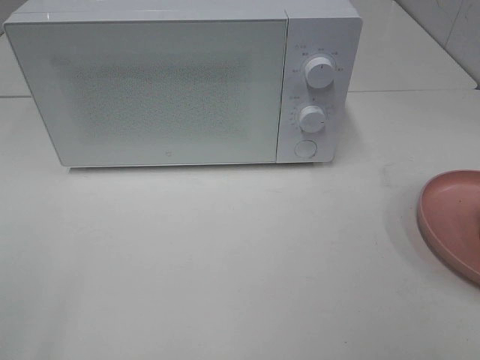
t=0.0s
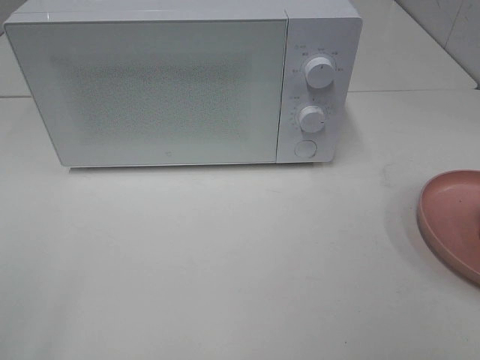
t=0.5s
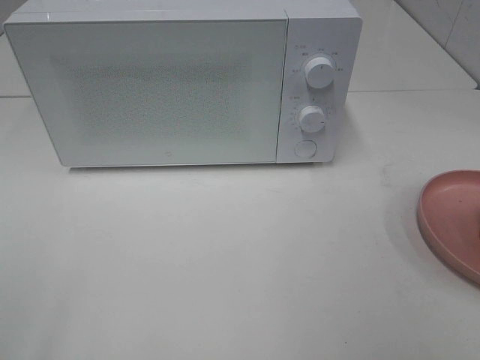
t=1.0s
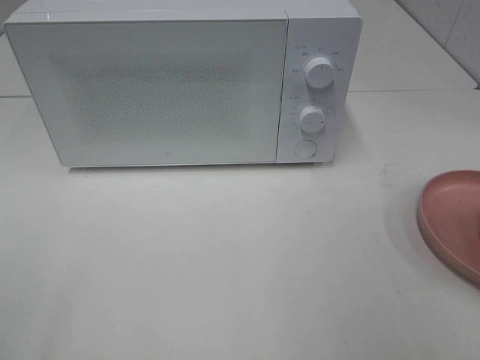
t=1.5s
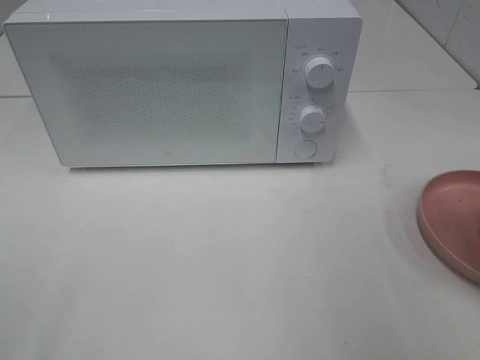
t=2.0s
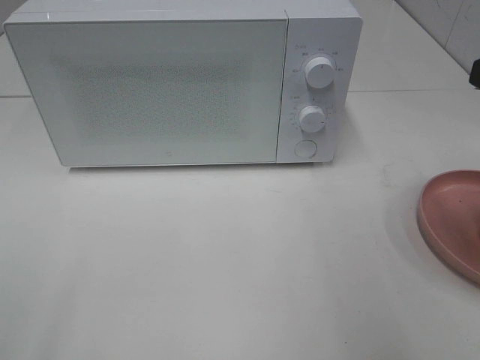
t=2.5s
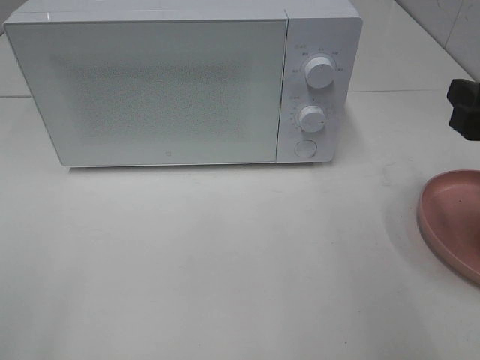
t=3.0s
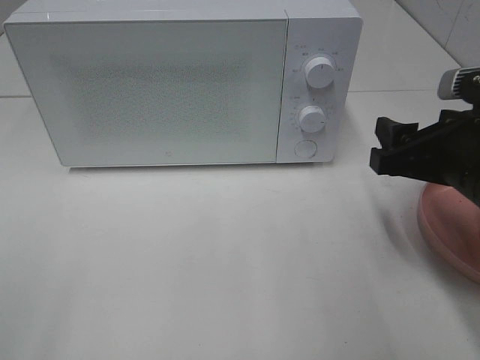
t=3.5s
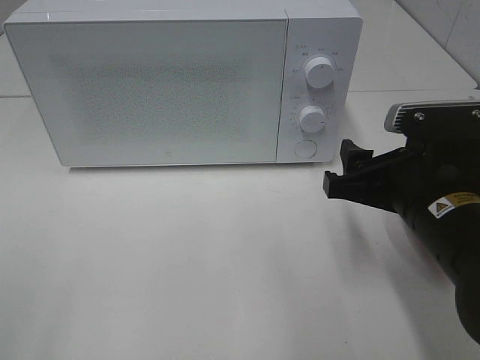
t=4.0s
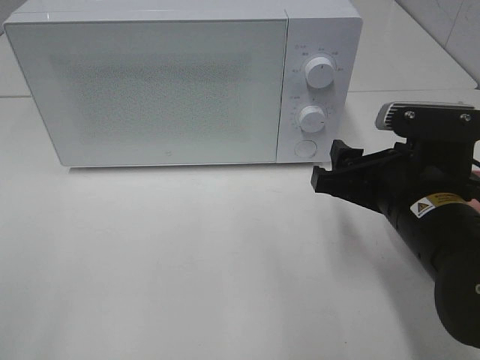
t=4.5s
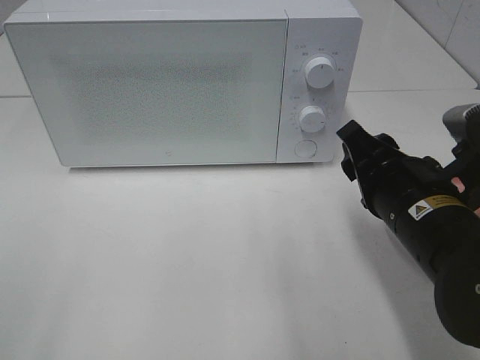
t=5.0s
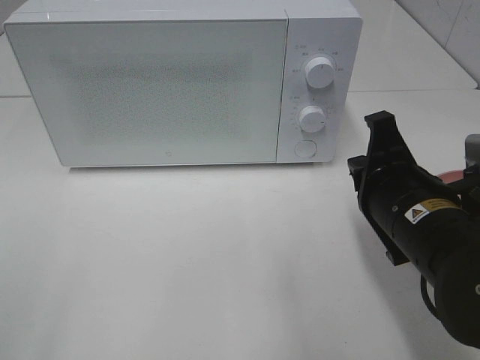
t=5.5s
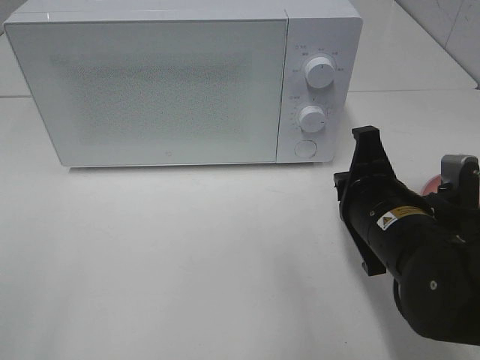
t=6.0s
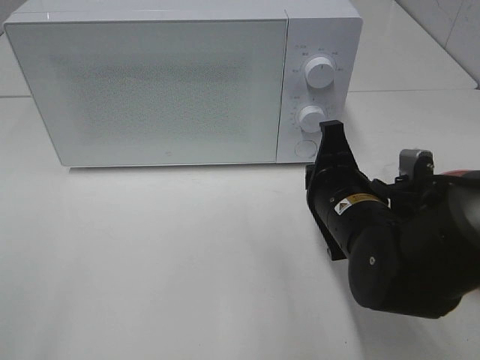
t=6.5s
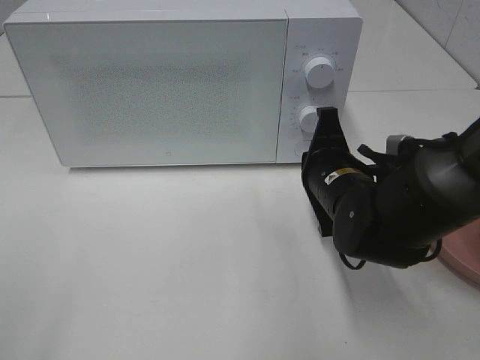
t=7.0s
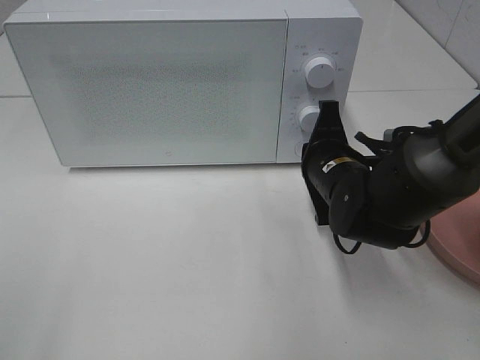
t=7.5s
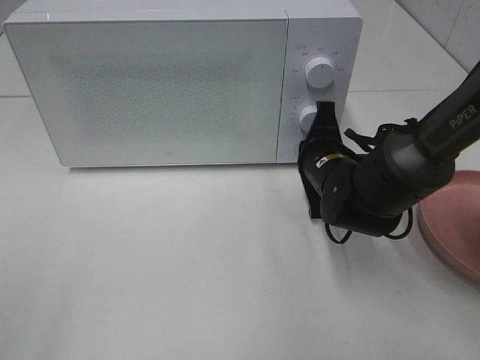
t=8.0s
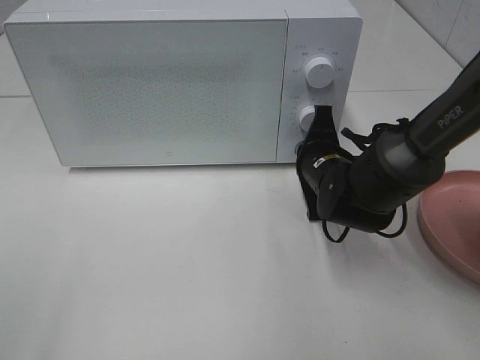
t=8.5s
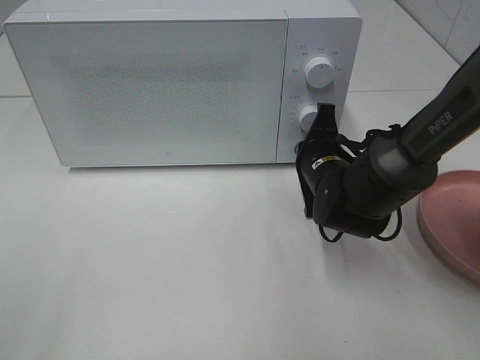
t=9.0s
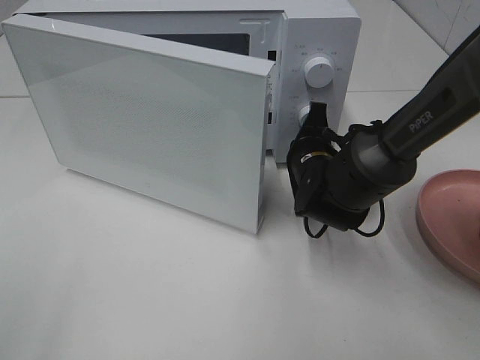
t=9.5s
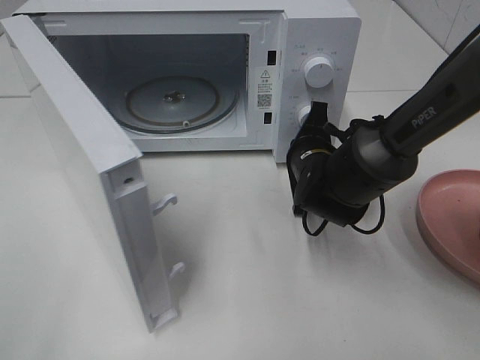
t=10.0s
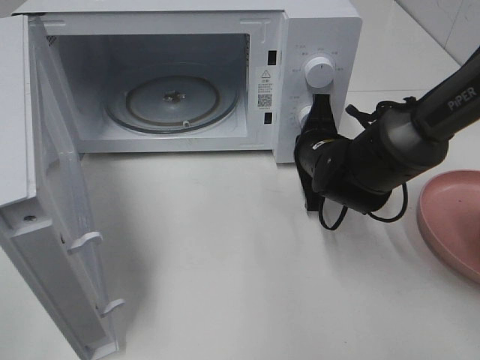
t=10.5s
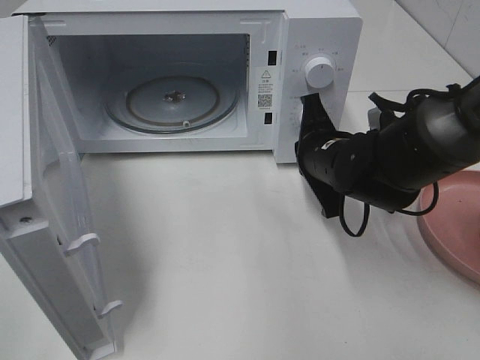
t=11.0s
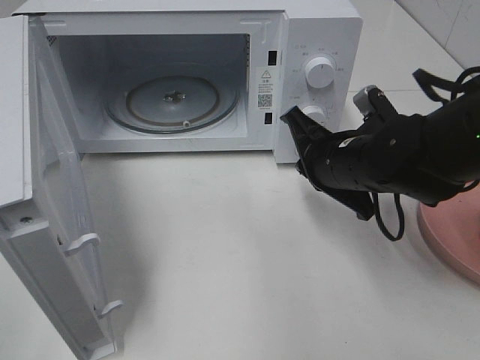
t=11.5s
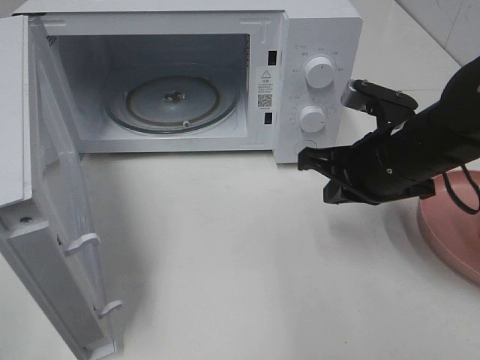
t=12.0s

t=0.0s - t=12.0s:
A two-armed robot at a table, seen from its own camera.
Task of the whole recording: Heat the burger.
Step, t=0.0s - t=10.5s: Right hand: press the switch.
t=2.0s - t=4.0s: The right gripper moves downward, to the left and forward, some 20 cm.
t=4.0s - t=6.0s: The right gripper closes.
t=6.0s - t=8.0s: The right gripper travels forward by approximately 10 cm.
t=10.0s - t=12.0s: The right gripper heads upward, backward and to the right, covering some 15 cm.

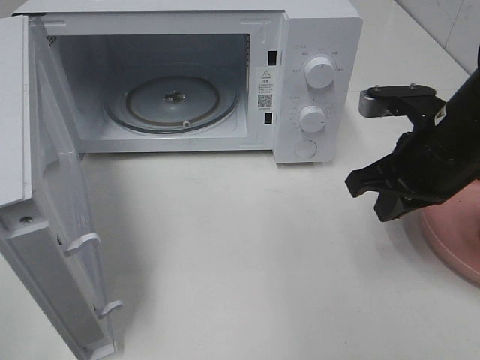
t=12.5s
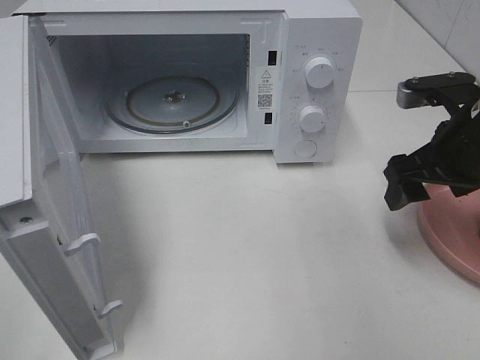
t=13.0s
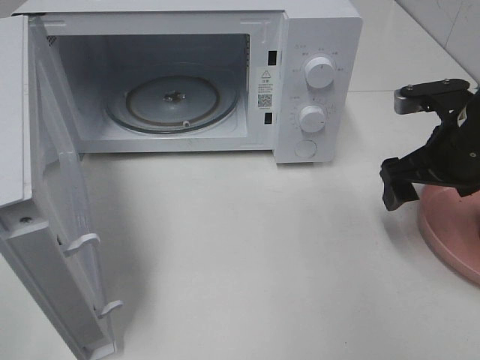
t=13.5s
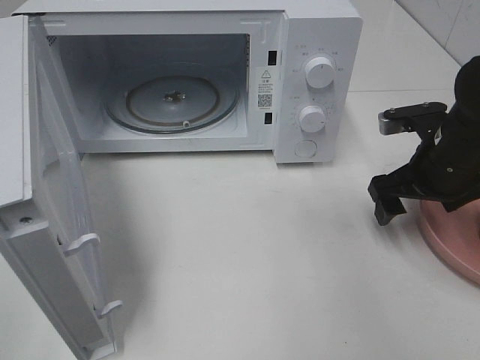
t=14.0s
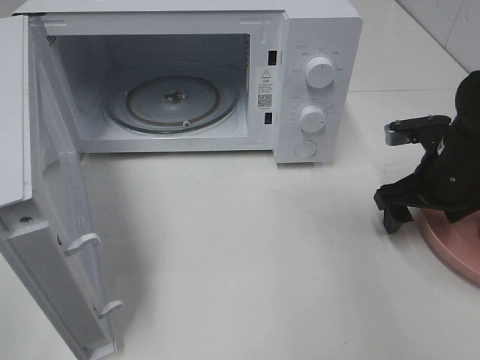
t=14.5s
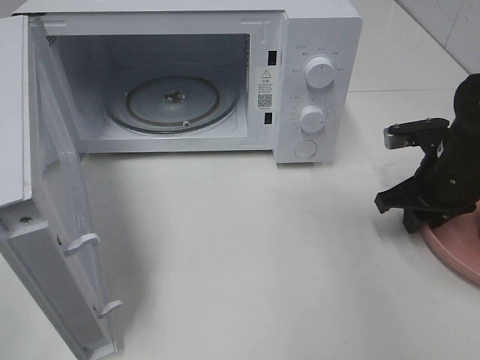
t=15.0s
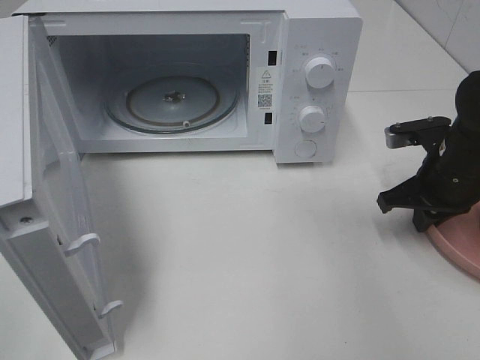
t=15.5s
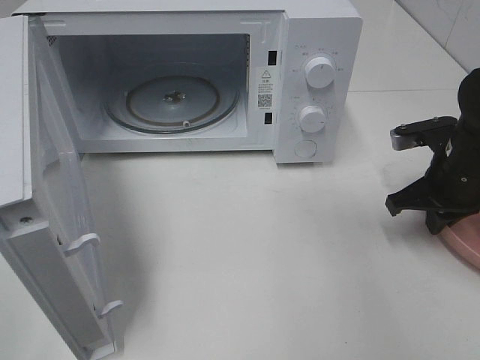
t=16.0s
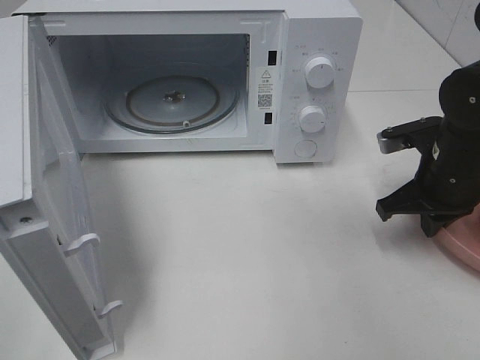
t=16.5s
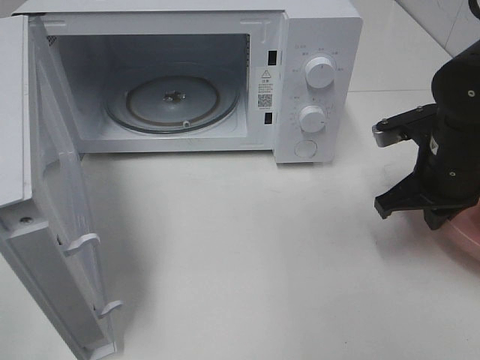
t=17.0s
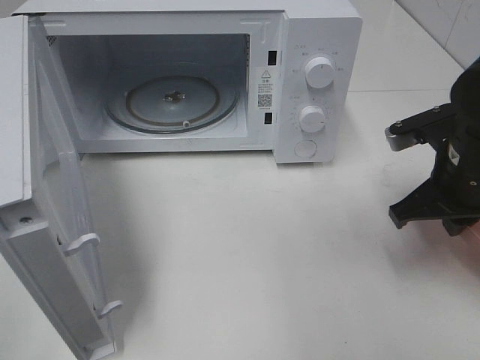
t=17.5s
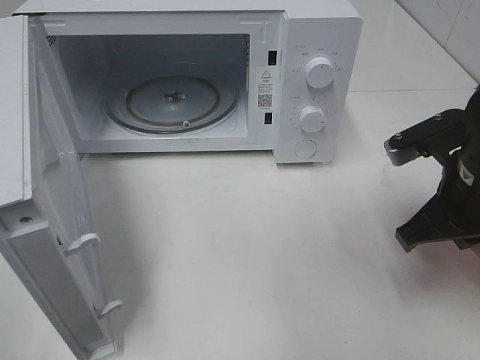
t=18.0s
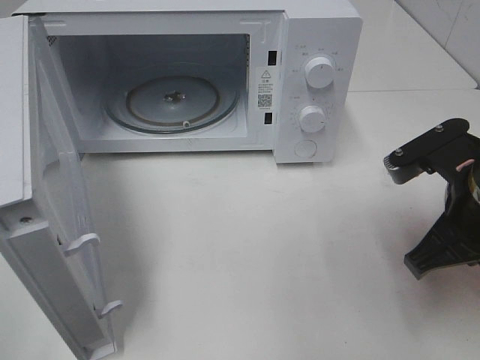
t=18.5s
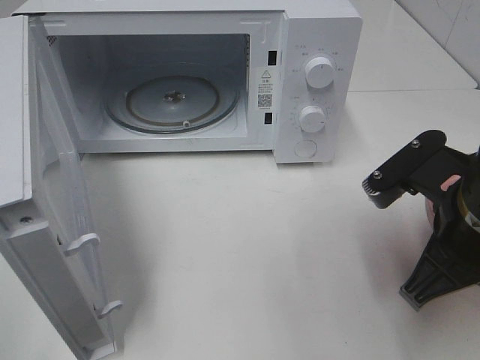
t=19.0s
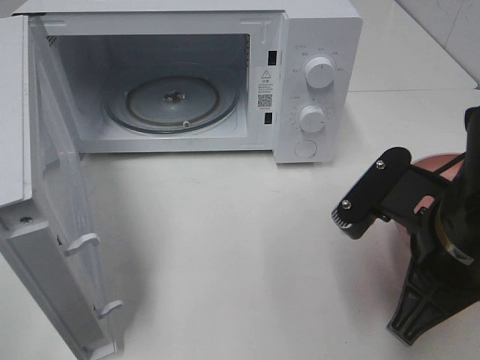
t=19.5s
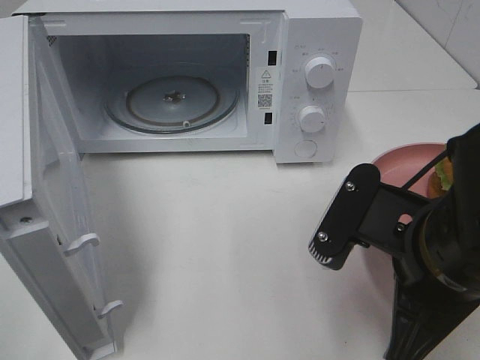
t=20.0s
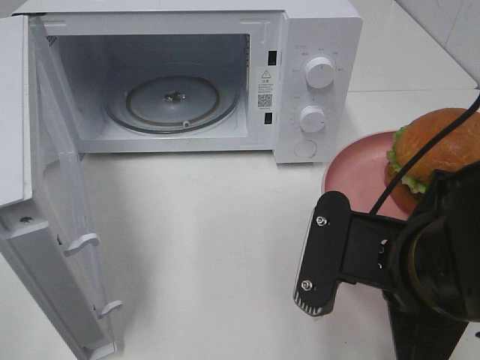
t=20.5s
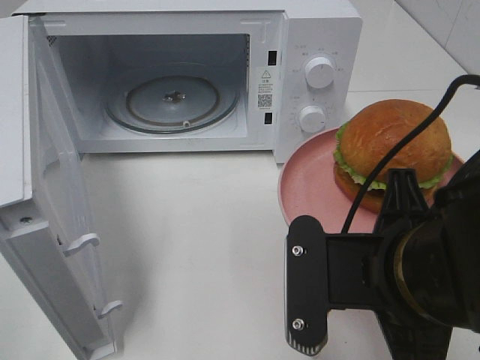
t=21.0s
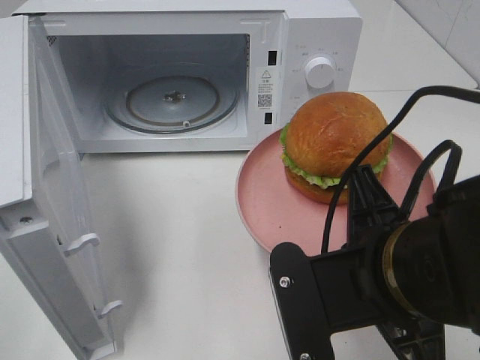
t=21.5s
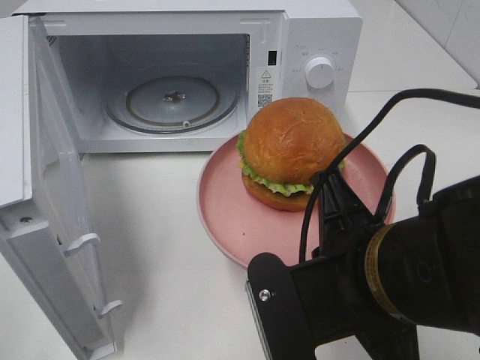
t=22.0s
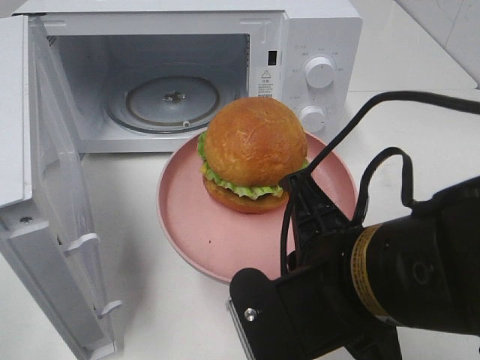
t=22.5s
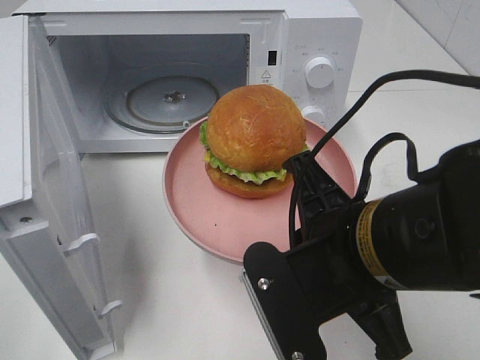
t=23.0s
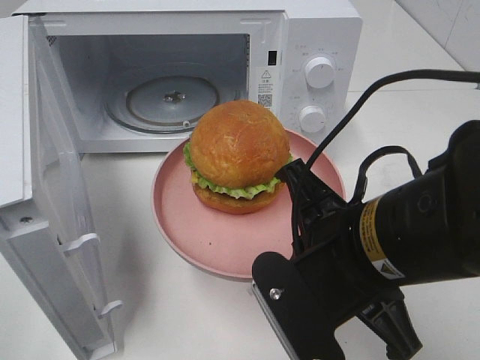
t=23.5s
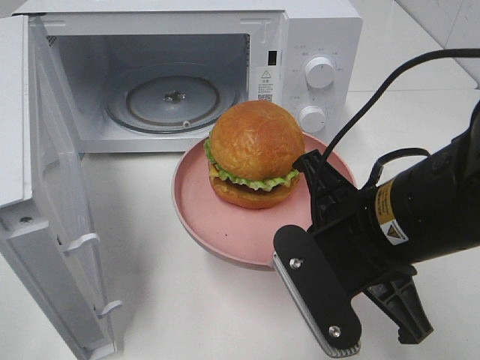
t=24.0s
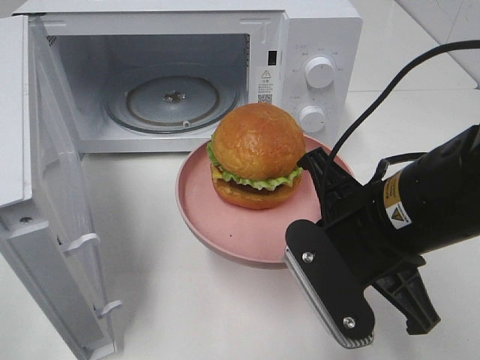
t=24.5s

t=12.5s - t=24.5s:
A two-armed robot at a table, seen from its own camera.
Task of the whole recording: Heat the burger.
Step, t=12.5s - t=15.5s: Right hand: grab the plate with the hamburger.
t=12.5s - t=14.5s: The right gripper travels downward and to the right by roughly 10 cm, and opens.
t=14.5s - t=16.5s: The right gripper closes its fingers.
t=16.5s - t=18.5s: The right gripper travels backward and upward by about 10 cm.
t=18.5s - t=20.5s: The right gripper heads to the left and backward, covering approximately 10 cm.
t=22.5s - t=24.5s: The right gripper heads forward, covering roughly 5 cm.

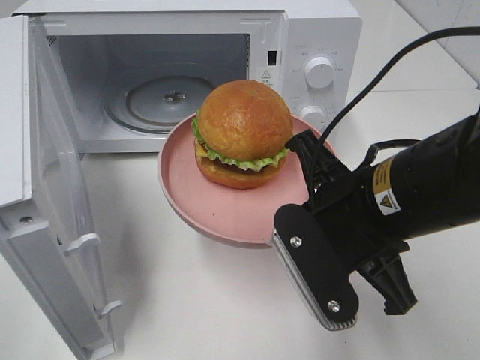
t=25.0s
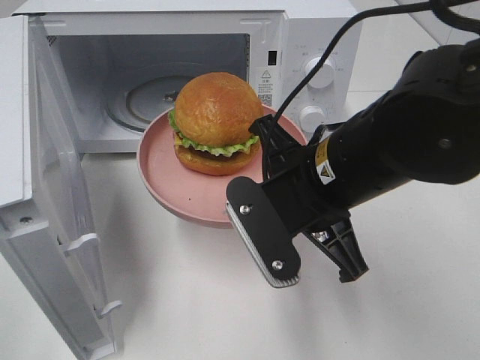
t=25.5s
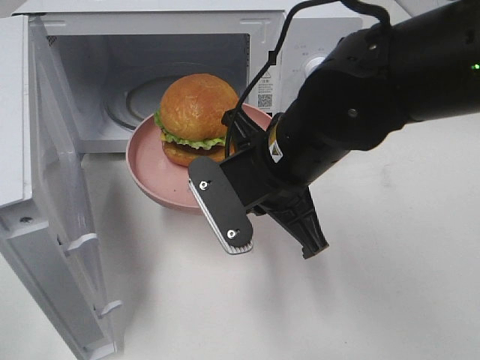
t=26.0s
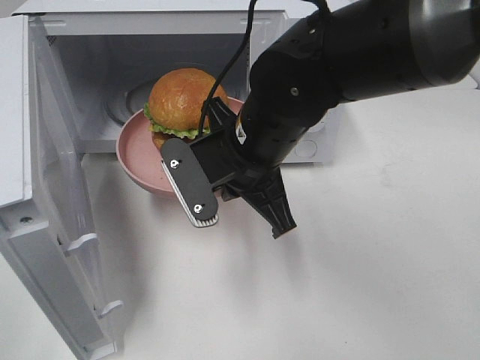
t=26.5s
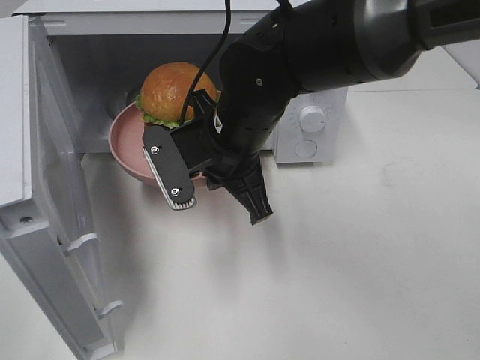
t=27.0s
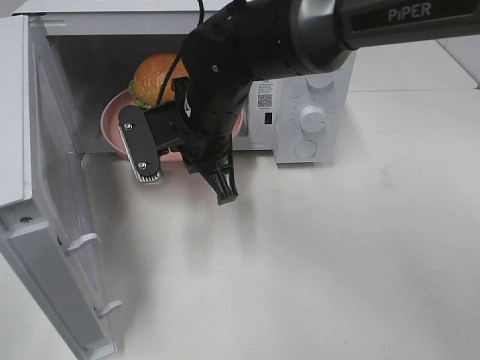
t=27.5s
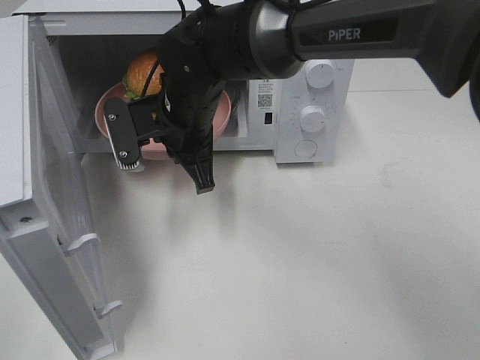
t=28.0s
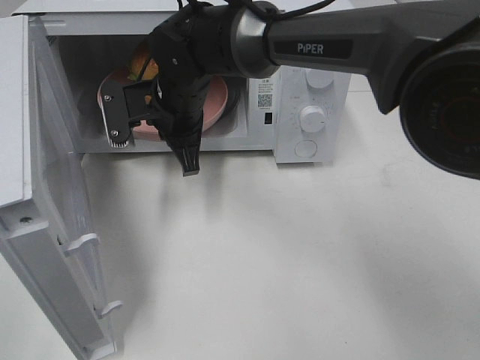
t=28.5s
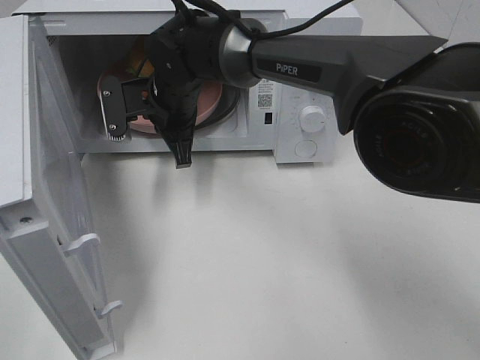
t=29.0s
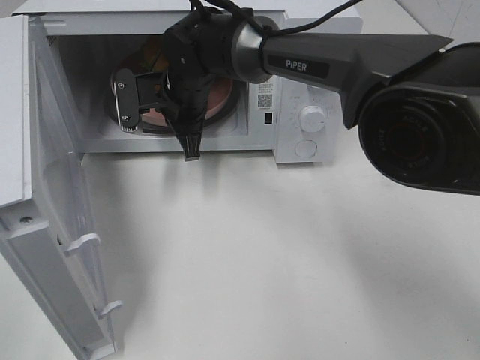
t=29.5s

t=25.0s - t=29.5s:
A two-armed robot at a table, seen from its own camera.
Task of the whole recording: Heat the burger.
t=25.0s - t=27.0s: The right gripper heads forward and to the left, covering about 15 cm.
t=27.0s - t=29.5s: The right gripper travels forward and to the left by about 15 cm.
